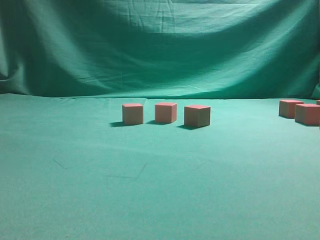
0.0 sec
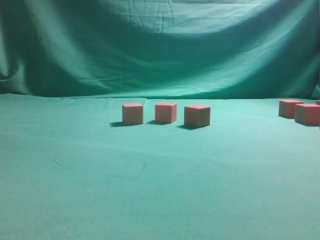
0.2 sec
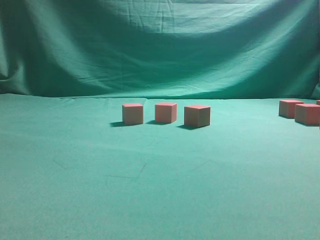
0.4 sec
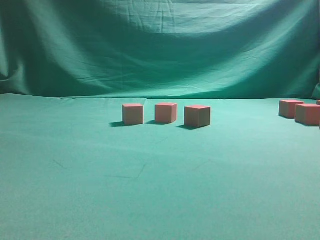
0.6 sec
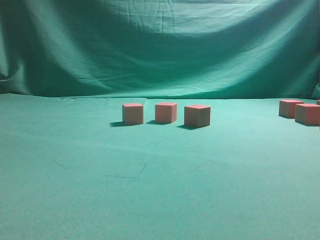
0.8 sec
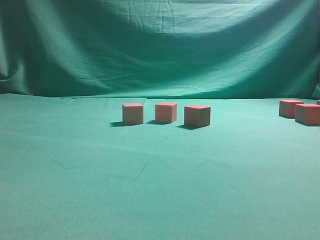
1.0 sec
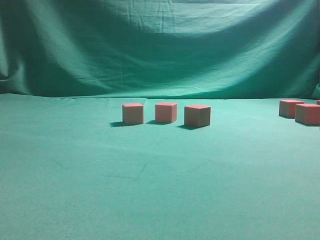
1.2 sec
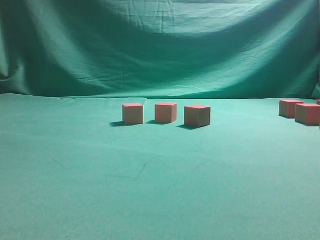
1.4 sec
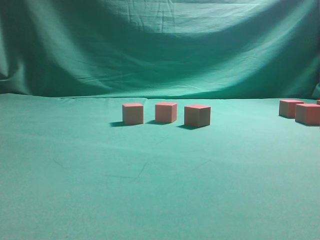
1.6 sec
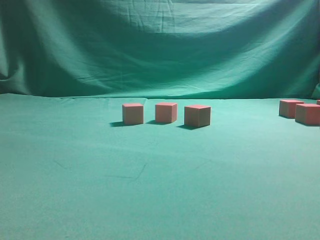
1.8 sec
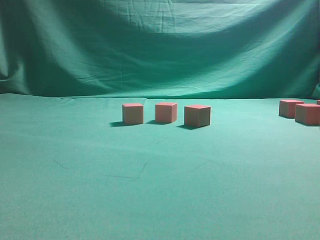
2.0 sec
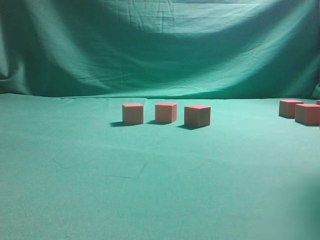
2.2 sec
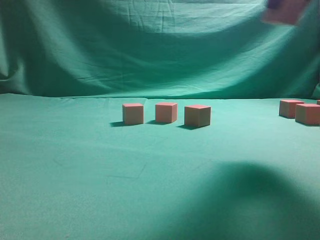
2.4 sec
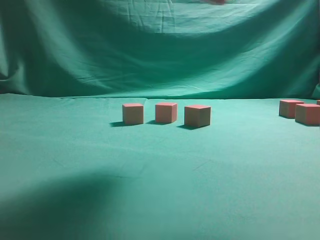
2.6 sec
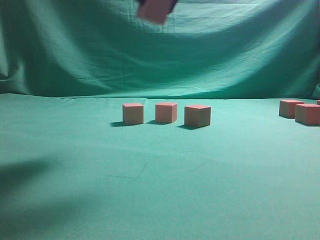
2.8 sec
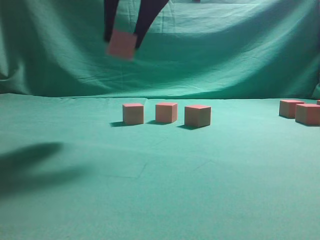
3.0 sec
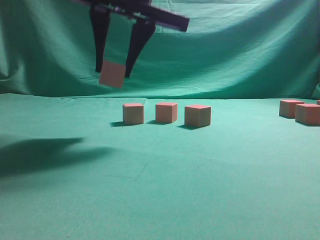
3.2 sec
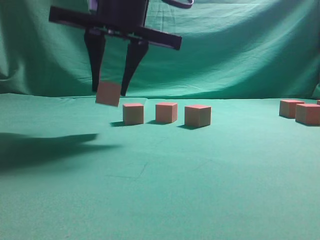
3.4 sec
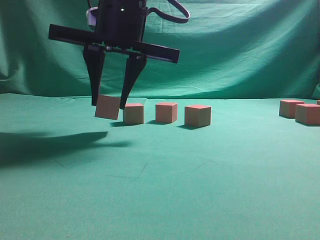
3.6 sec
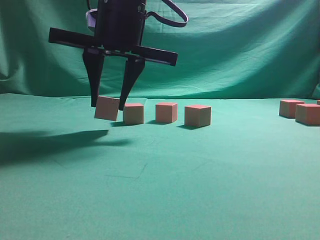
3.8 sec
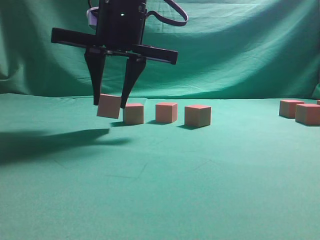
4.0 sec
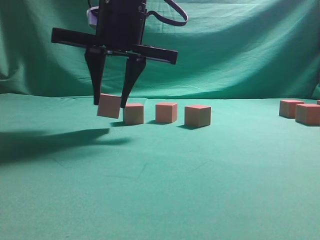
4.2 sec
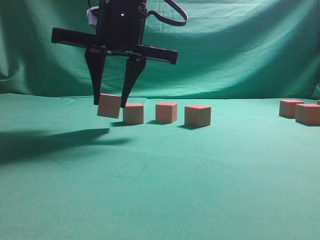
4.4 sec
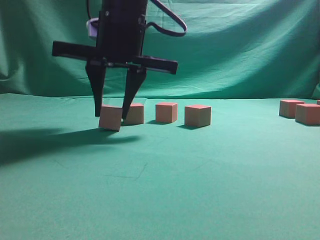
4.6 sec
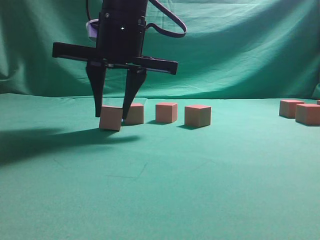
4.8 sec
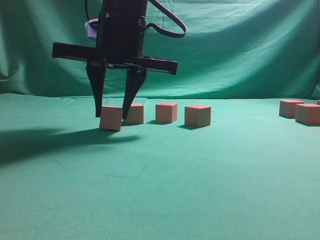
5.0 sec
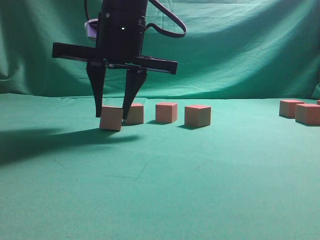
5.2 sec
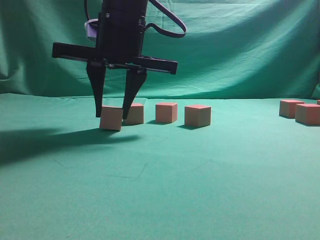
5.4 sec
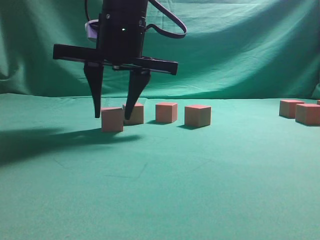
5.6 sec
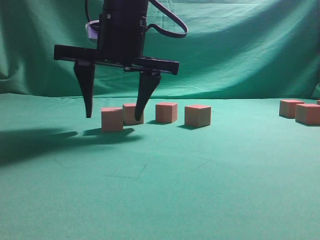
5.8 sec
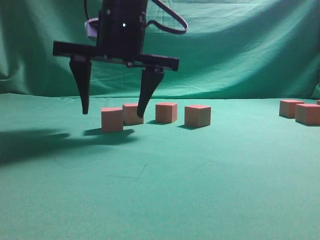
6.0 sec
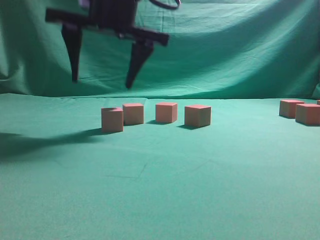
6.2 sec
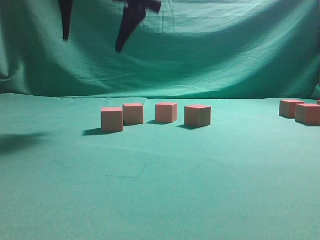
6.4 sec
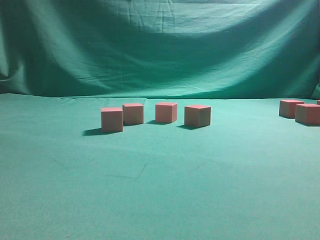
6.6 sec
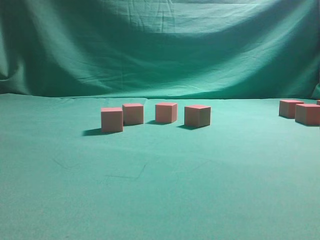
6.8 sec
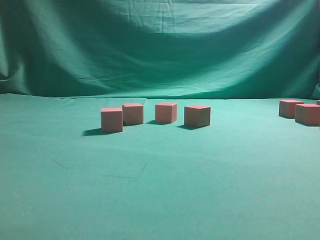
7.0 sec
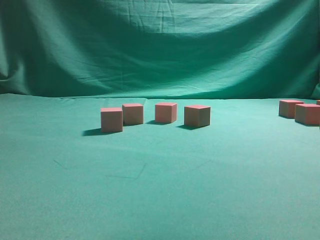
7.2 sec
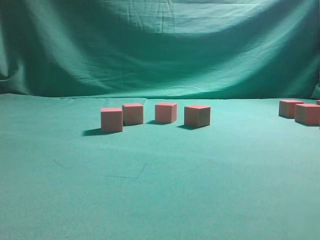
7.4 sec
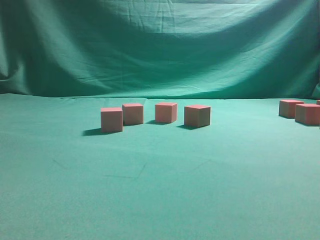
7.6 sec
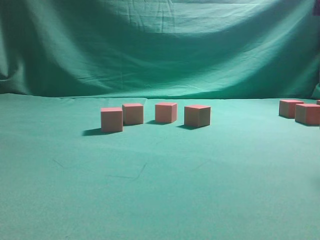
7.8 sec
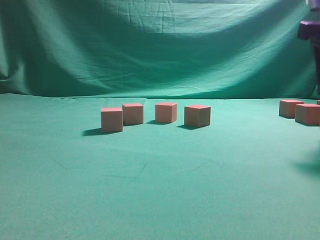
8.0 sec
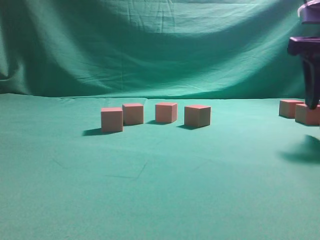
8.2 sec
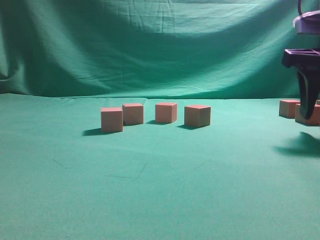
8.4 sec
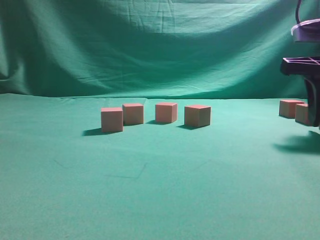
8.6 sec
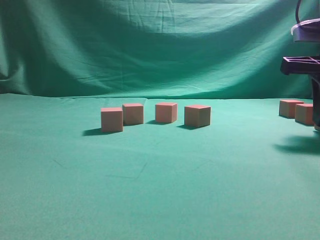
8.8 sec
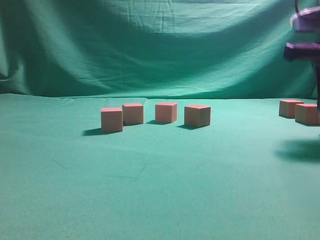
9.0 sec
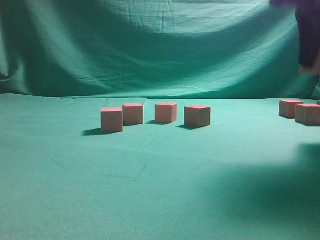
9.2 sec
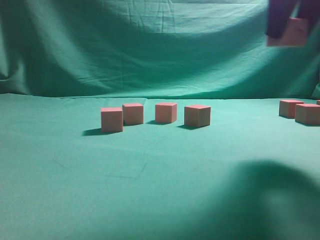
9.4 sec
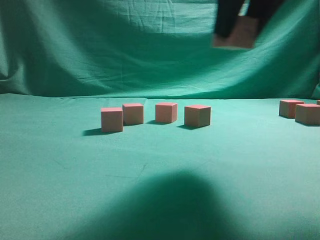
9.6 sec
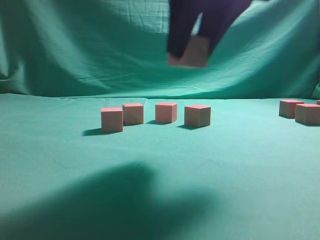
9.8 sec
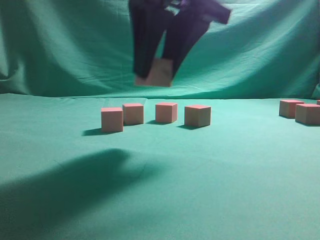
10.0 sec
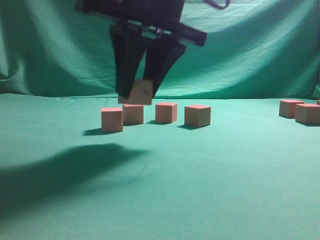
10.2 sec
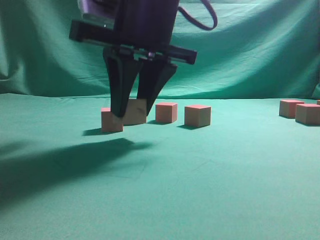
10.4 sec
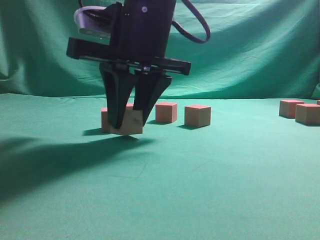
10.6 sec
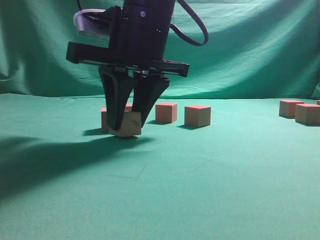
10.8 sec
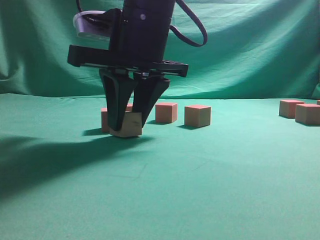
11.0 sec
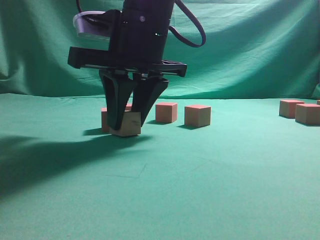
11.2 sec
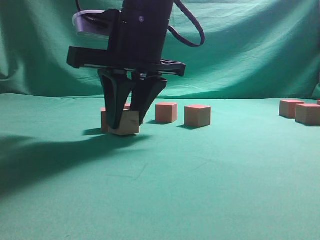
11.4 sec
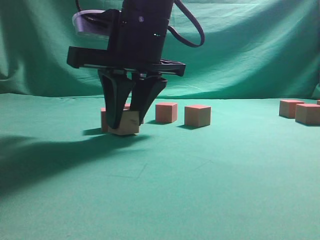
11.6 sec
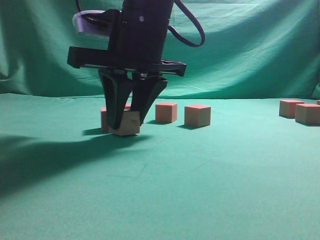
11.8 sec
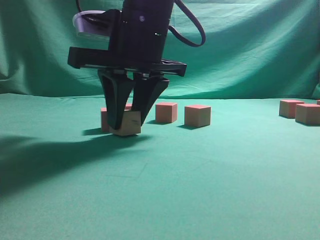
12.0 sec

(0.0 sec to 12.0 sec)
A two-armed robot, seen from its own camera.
Task of the whole recording: pick up the multiple cubes in two columns one by one and place them in another position on the table.
Step, 2.0 sec - 6.2 sec: Place the block at the correct position to assemble the letter S.
Step, 6.4 sec - 9.0 sec: Pick up the block on the table.
1.6 sec - 3.0 sec: The right gripper is displaced to the left by about 30 cm.
3.0 sec - 4.4 sec: The right gripper travels downward by about 10 cm.
4.4 sec - 6.0 sec: The right gripper opens.
6.0 sec - 7.6 sec: The right gripper heads to the right, covering some 30 cm.
7.6 sec - 9.0 sec: The right gripper heads downward, covering approximately 10 cm, and closes.
9.0 sec - 10.4 sec: The right gripper moves to the left, some 25 cm.
10.4 sec - 12.0 sec: The grippers make only small movements.

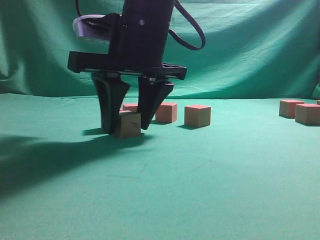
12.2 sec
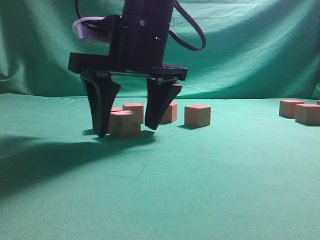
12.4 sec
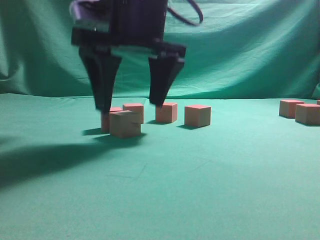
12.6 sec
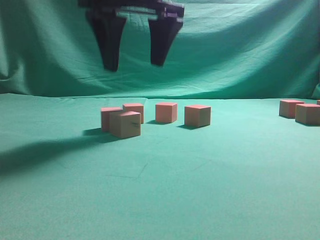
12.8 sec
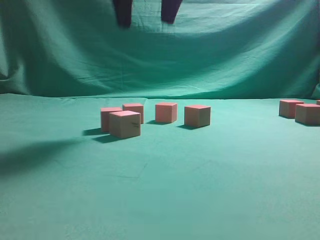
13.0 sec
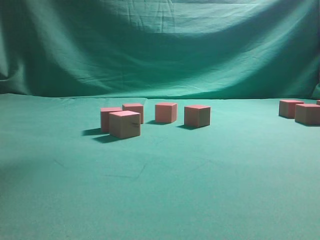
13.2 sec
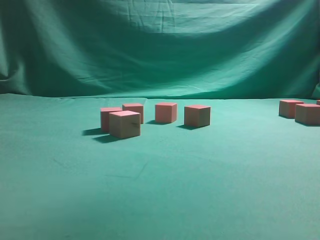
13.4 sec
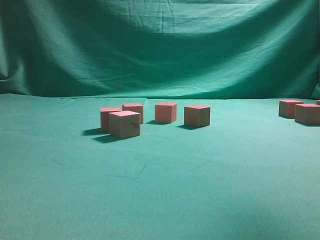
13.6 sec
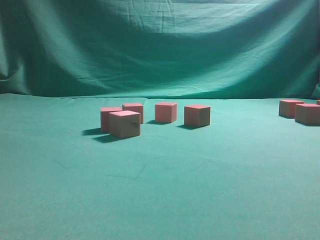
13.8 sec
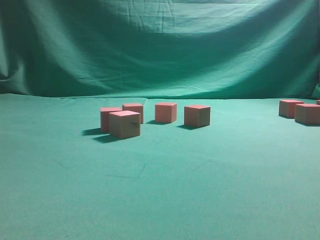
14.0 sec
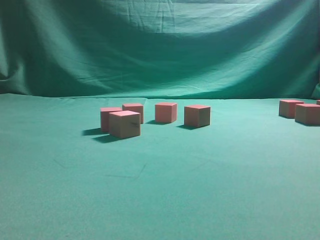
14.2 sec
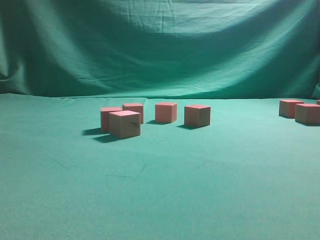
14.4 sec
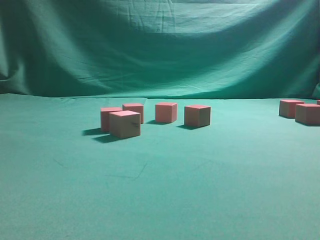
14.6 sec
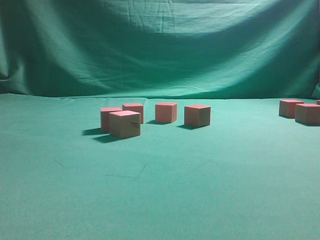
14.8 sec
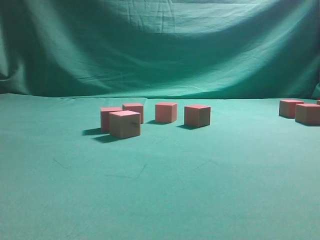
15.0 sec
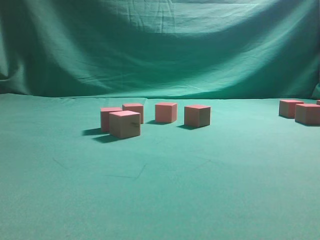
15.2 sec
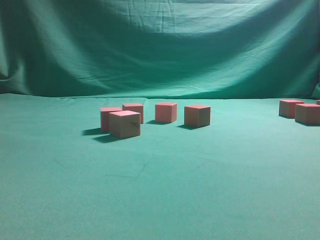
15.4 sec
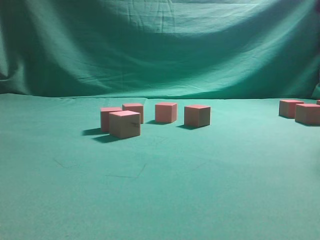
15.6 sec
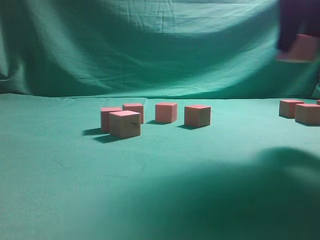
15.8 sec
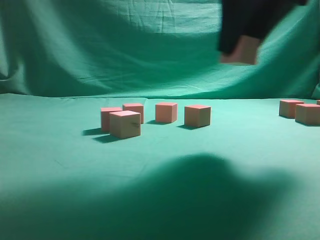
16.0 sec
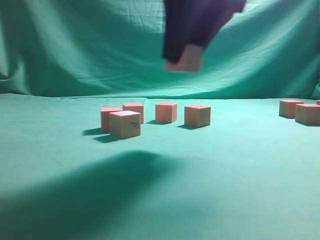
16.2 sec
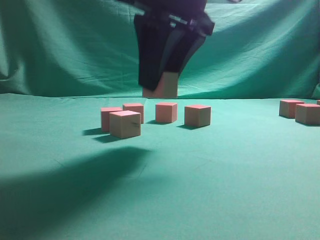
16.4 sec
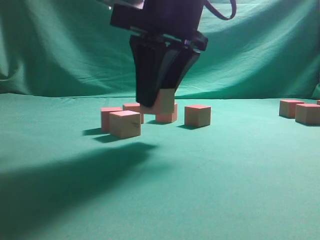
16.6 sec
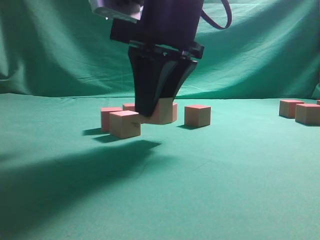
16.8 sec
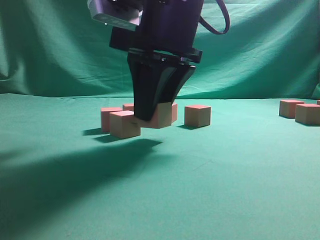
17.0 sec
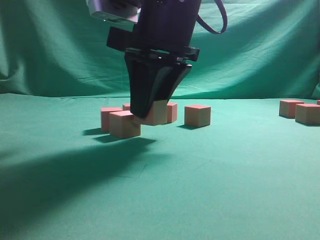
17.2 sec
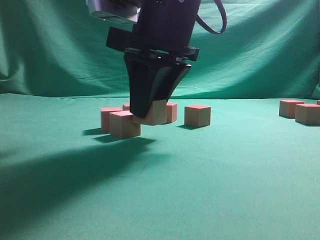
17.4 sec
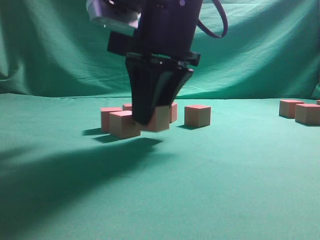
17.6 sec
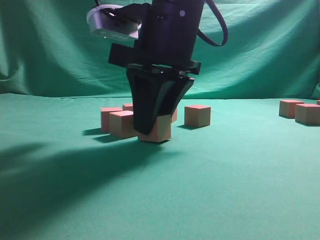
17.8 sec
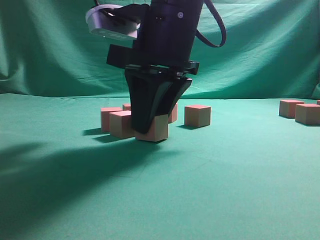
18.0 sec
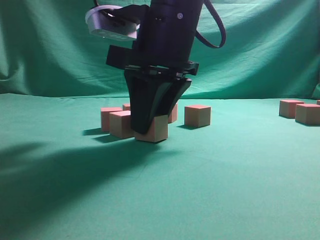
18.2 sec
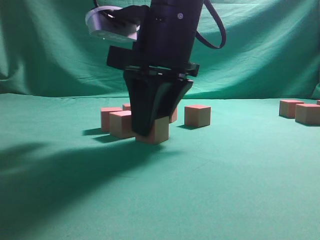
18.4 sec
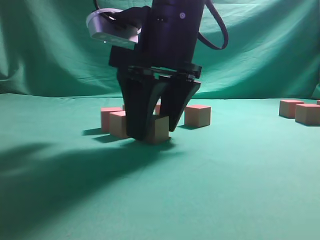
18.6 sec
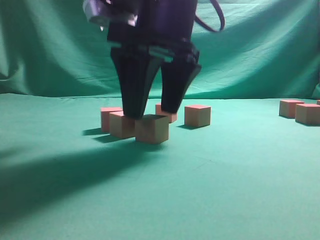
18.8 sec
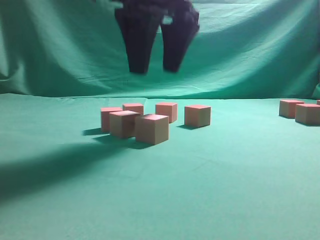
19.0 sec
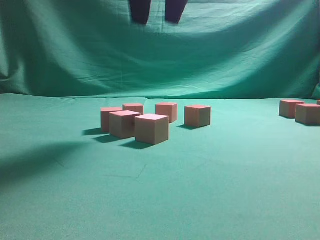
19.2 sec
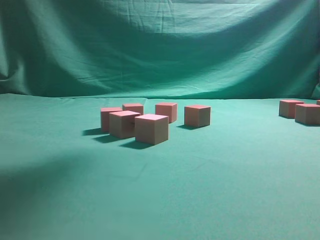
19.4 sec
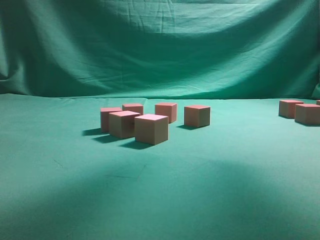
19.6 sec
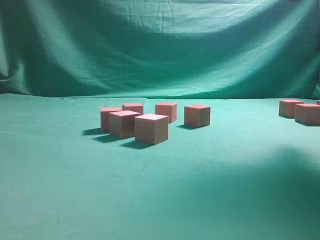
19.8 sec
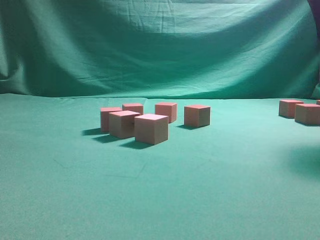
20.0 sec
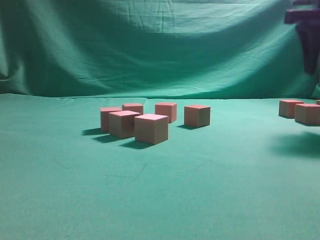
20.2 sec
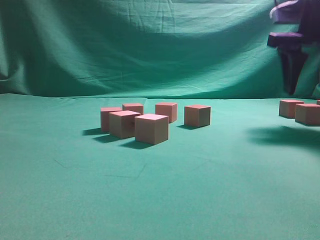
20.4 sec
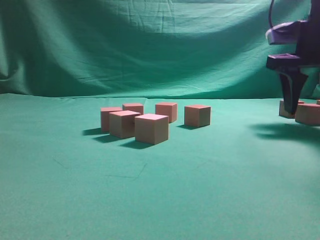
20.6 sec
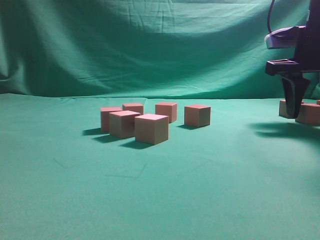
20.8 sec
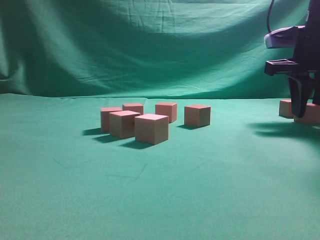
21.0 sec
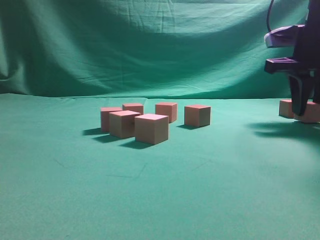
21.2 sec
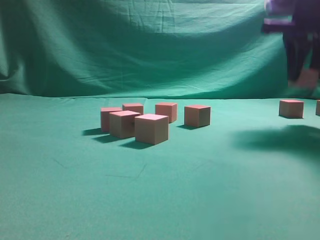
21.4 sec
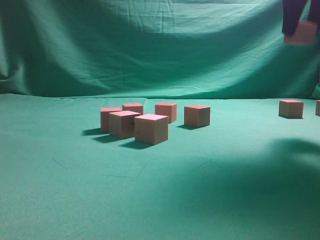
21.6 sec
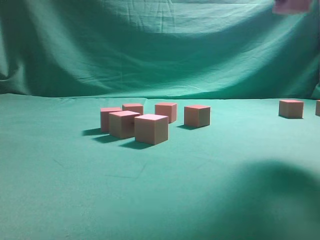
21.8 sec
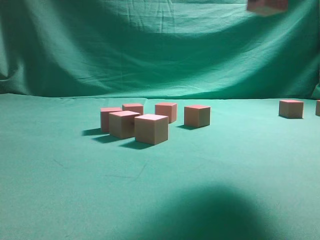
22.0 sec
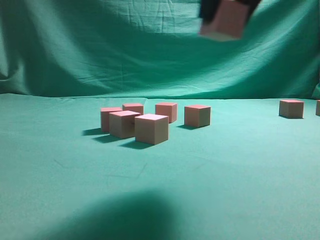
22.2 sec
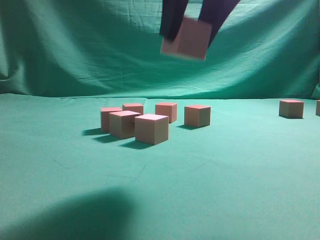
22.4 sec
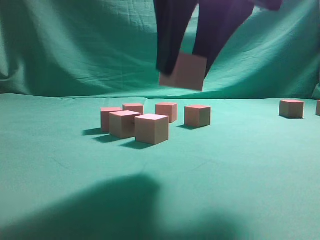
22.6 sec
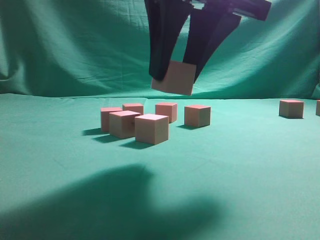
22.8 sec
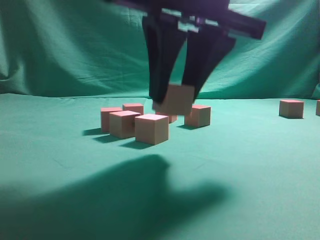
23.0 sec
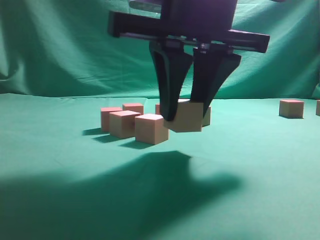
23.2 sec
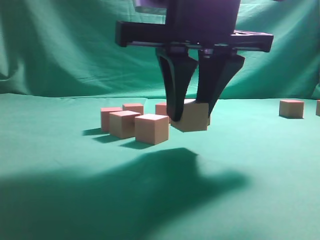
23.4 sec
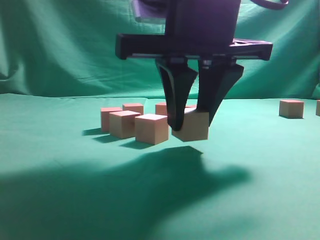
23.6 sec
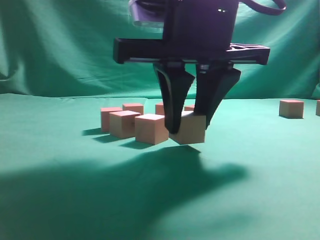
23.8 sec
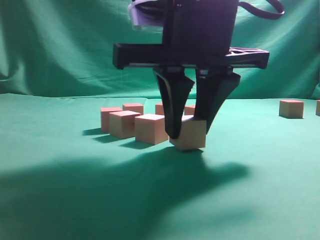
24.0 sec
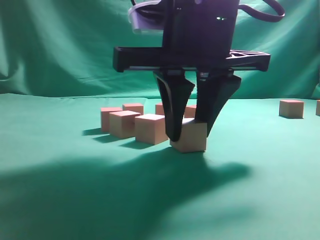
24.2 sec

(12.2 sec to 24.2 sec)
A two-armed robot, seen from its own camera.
Task of the whole recording: pick up the multiple cubes in two columns one by one and place them in another position on the table.
Step, 12.8 sec - 15.2 sec: Pick up the block on the table.
Step, 15.6 sec - 18.8 sec: Place the block at the correct position to assemble the letter S.
Step, 19.2 sec - 21.0 sec: Pick up the block on the table.
12.2 sec - 13.8 sec: The right gripper heads to the right and upward, covering approximately 35 cm.
15.2 sec - 16.6 sec: The right gripper shifts approximately 30 cm to the left.
16.6 sec - 18.2 sec: The grippers stay close to where they were, moving slightly.
18.2 sec - 19.8 sec: The right gripper shifts some 25 cm to the right and upward, and opens its fingers.
19.8 sec - 21.2 sec: The right gripper goes approximately 20 cm downward, and closes up.
21.2 sec - 22.6 sec: The right gripper travels backward and to the left by some 25 cm.
22.6 sec - 24.2 sec: The right gripper heads downward, covering roughly 5 cm.
